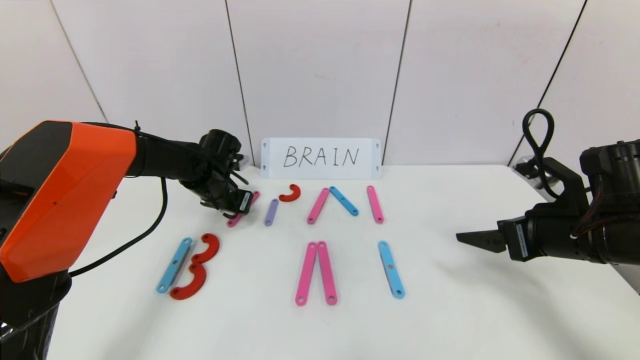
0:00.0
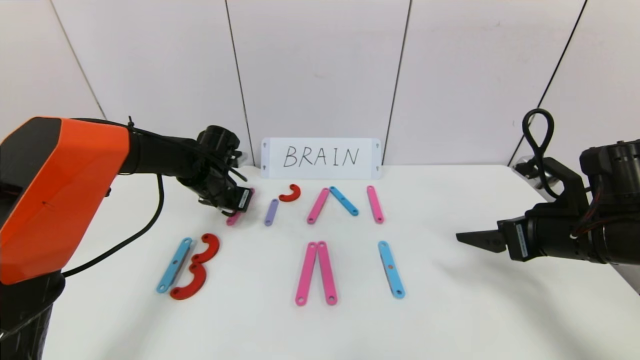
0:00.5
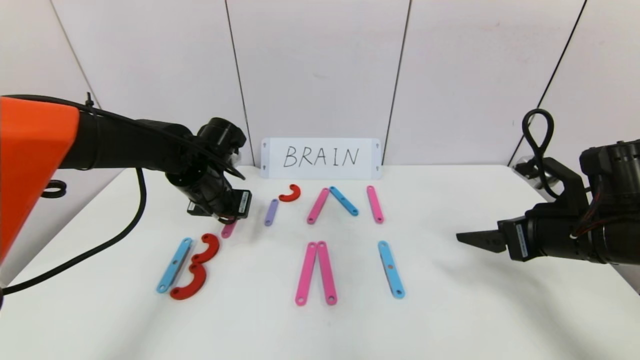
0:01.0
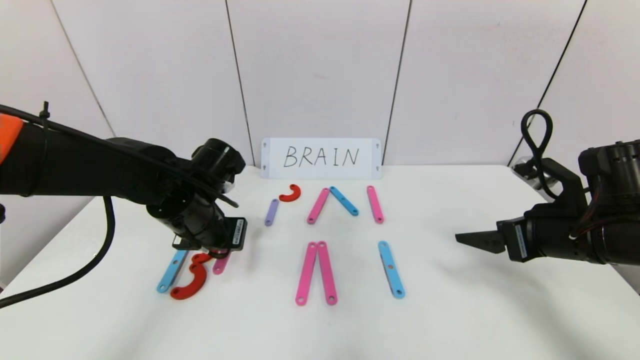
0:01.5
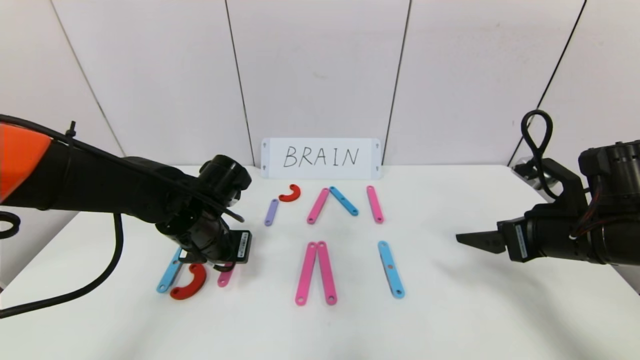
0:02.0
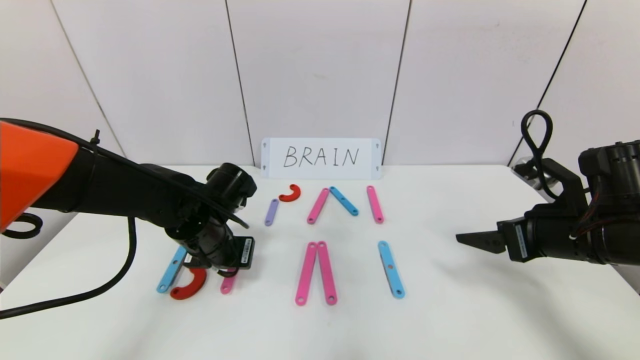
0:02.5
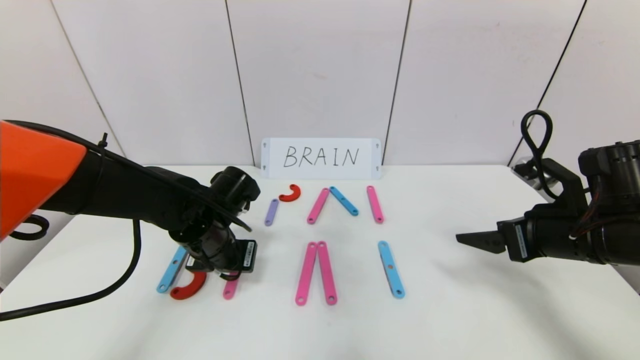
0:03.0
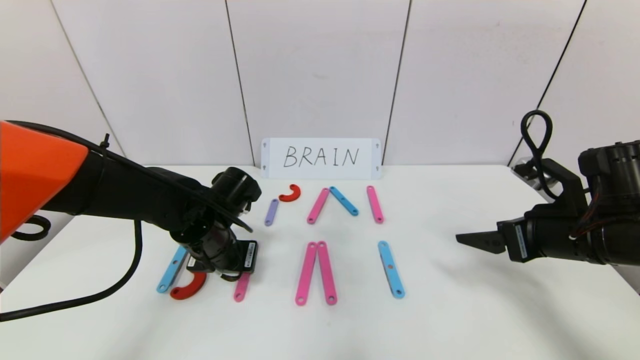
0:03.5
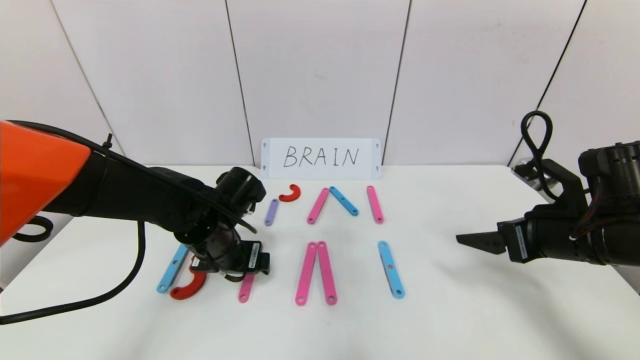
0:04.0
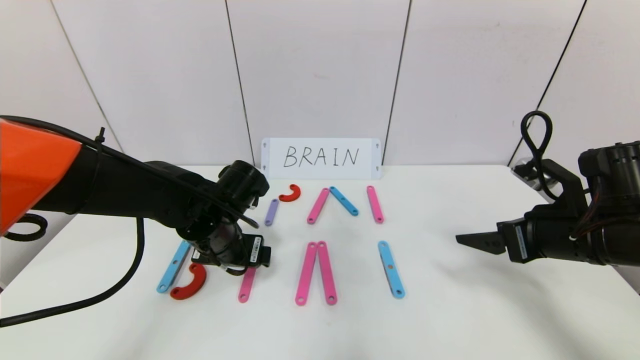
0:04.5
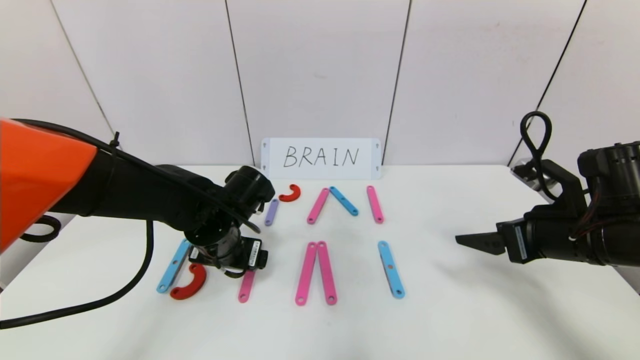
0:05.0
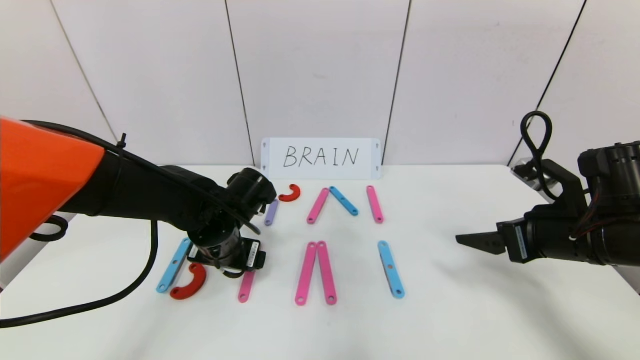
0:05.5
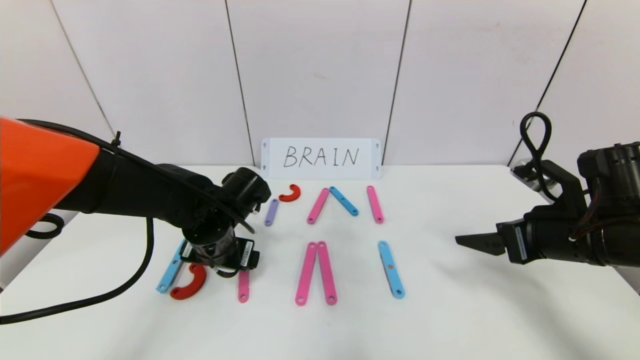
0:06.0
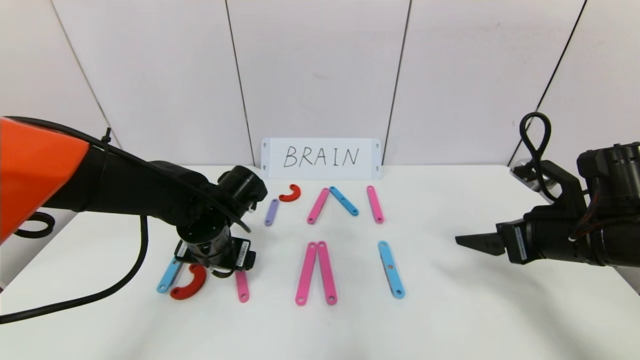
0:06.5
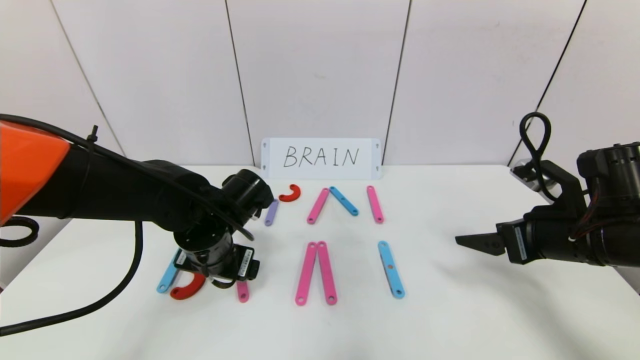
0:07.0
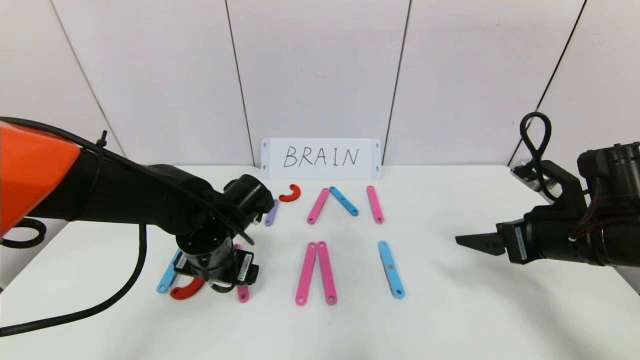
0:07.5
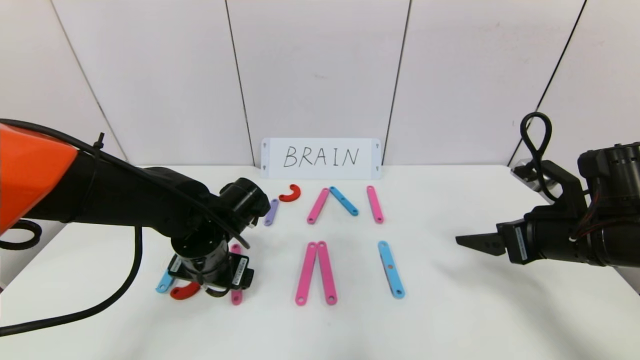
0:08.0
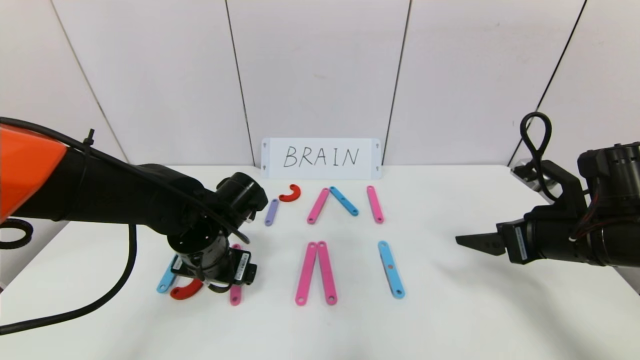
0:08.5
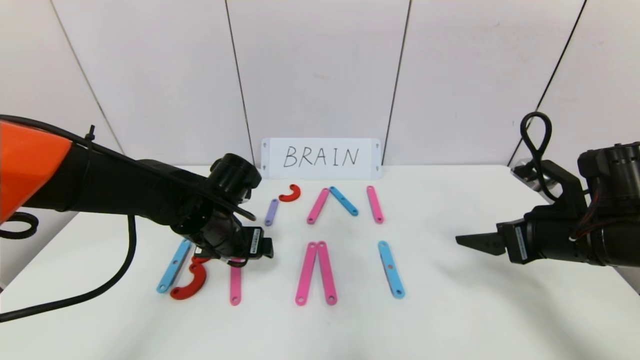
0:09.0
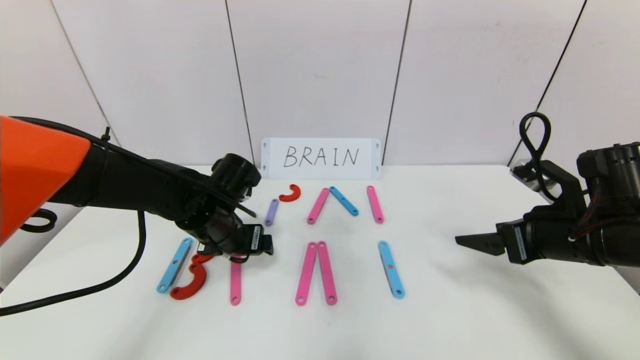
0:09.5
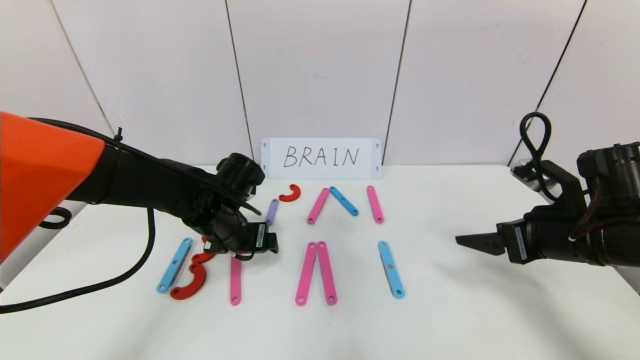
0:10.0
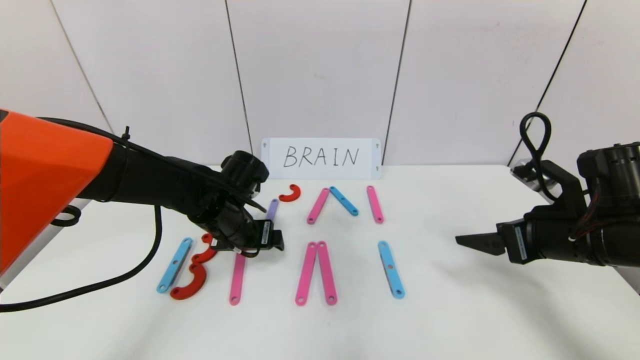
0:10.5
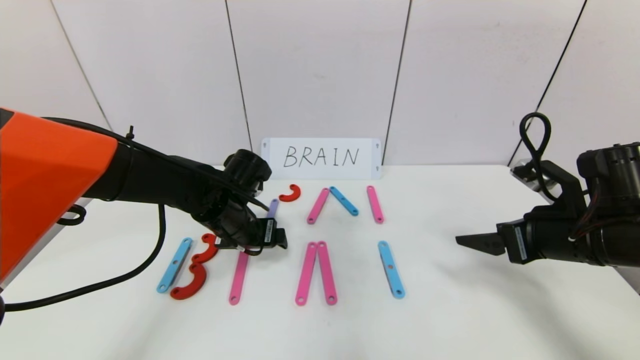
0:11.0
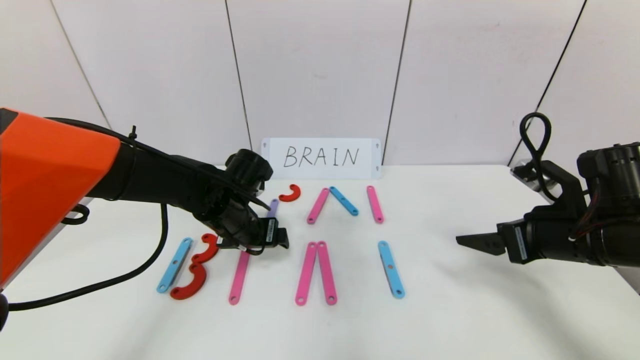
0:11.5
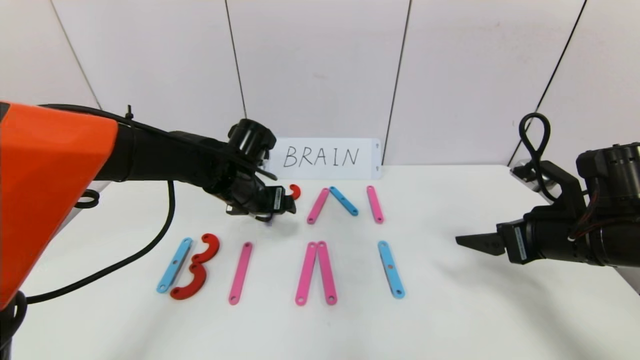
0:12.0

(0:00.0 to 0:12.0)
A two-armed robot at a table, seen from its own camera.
Task of the whole recording: rearrange the word baai as brain.
0:00.0 - 0:02.0: The left gripper heads backward, covering roughly 15 cm.
0:02.0 - 0:04.0: The left gripper opens.
0:04.0 - 0:08.0: The grippers stay close to where they were, moving slightly.
0:08.0 - 0:10.0: The left gripper is displaced forward by some 5 cm.
0:10.0 - 0:12.0: The left gripper moves approximately 5 cm.

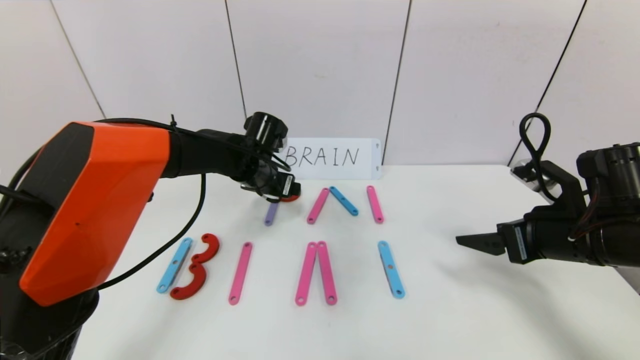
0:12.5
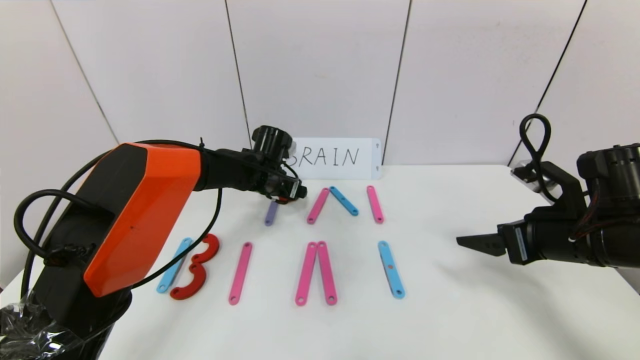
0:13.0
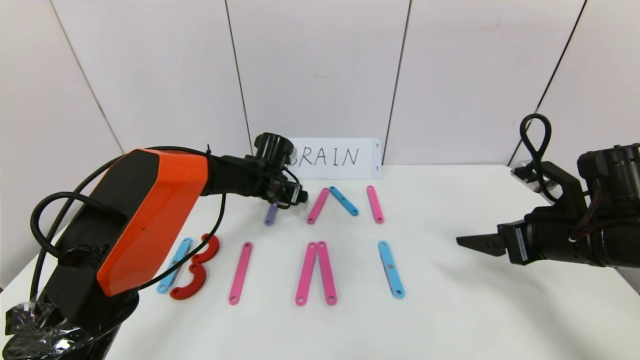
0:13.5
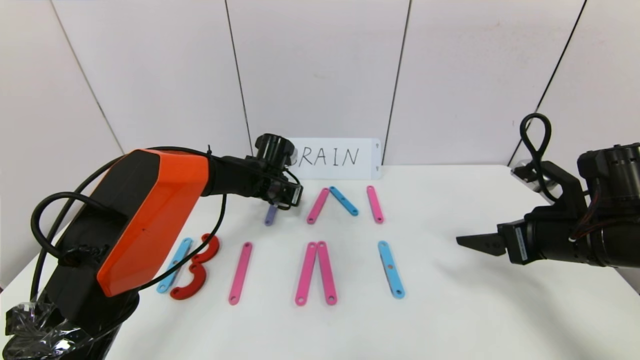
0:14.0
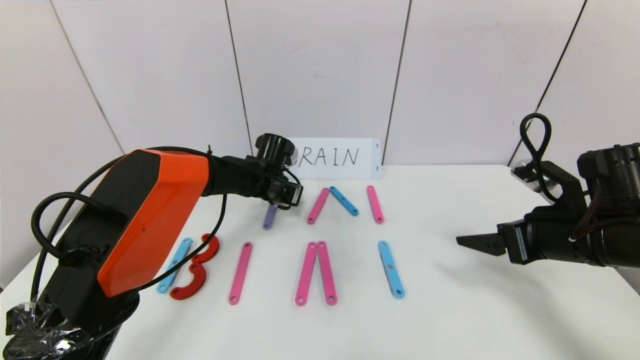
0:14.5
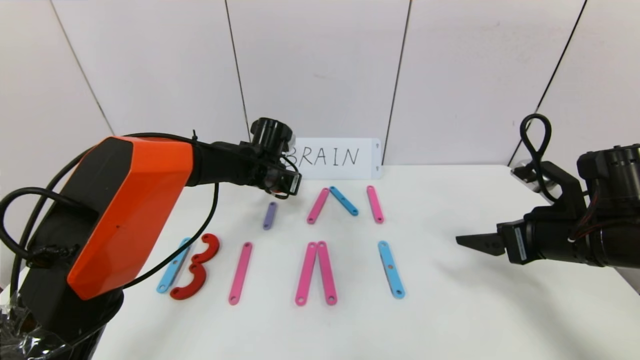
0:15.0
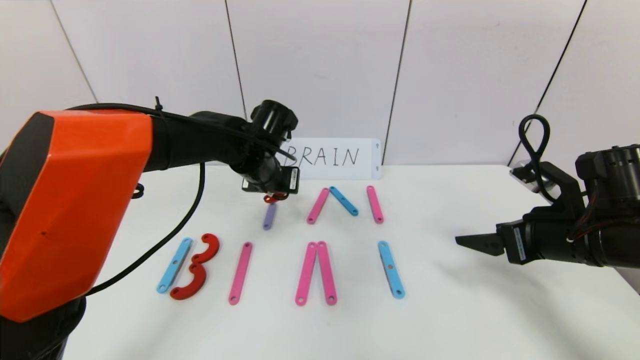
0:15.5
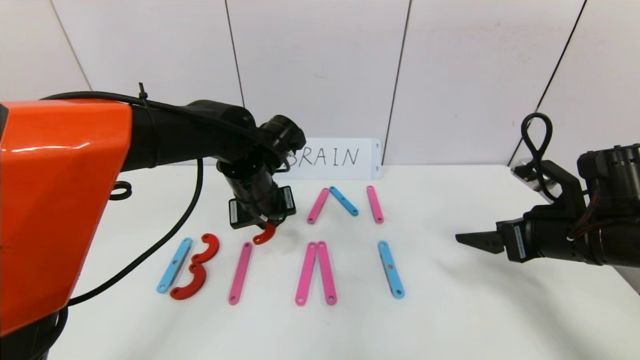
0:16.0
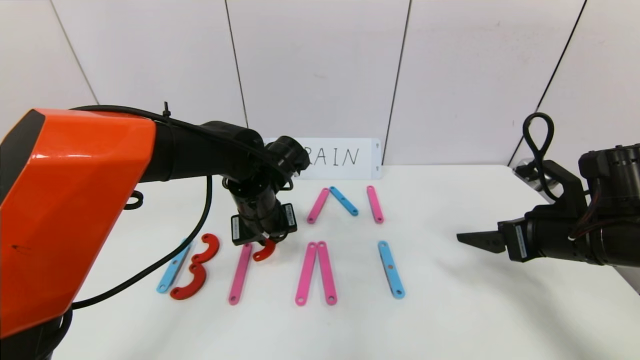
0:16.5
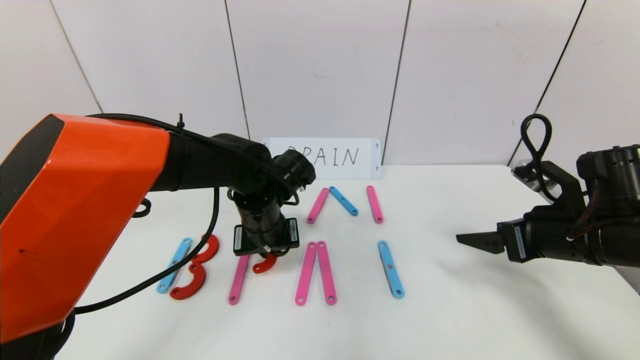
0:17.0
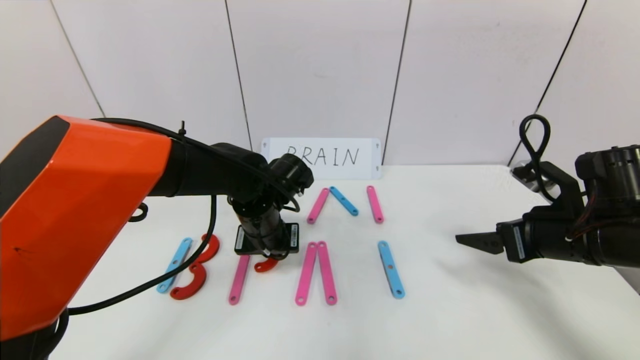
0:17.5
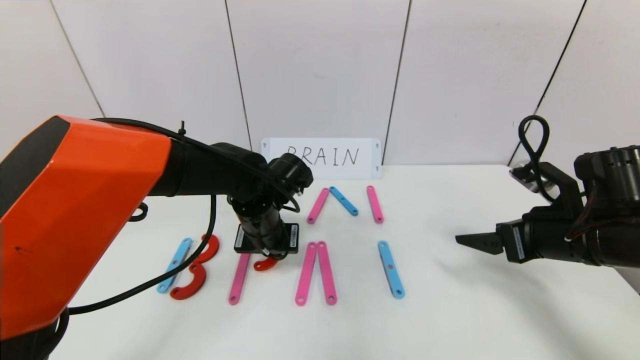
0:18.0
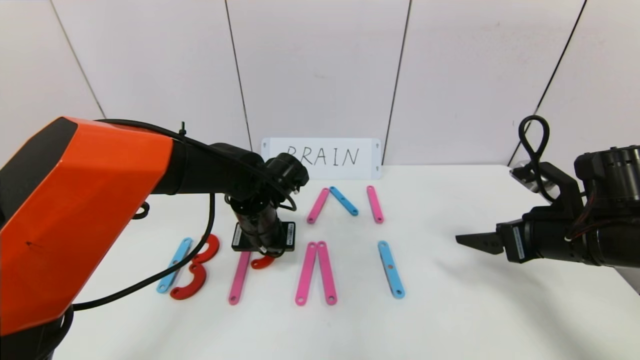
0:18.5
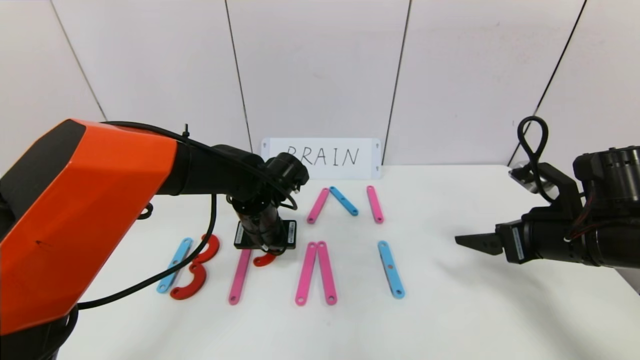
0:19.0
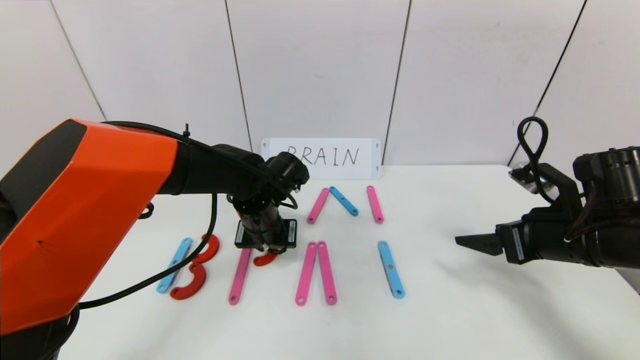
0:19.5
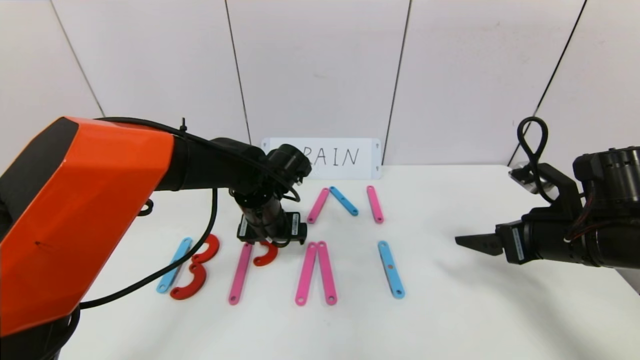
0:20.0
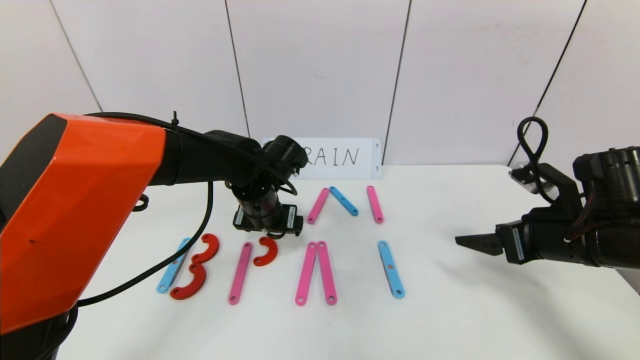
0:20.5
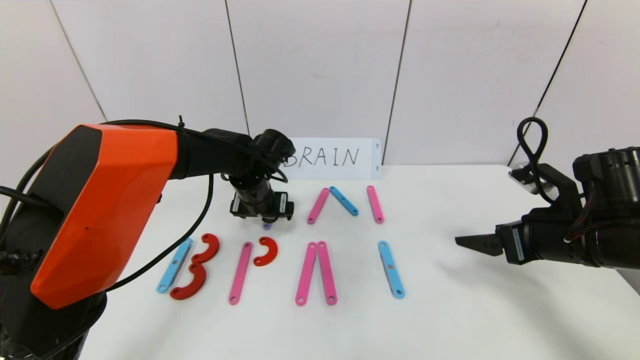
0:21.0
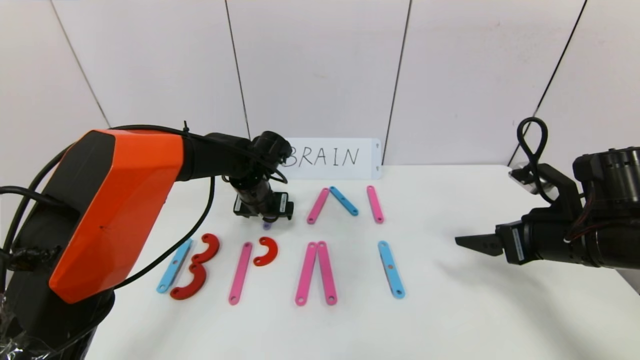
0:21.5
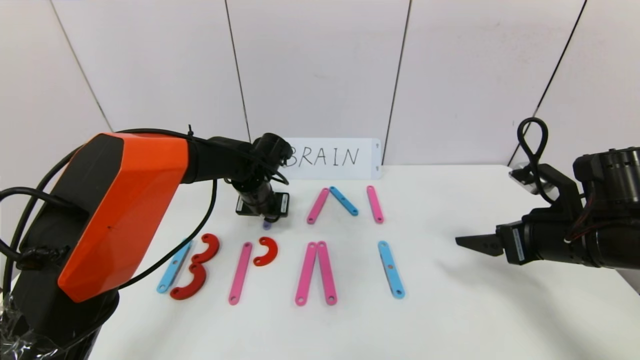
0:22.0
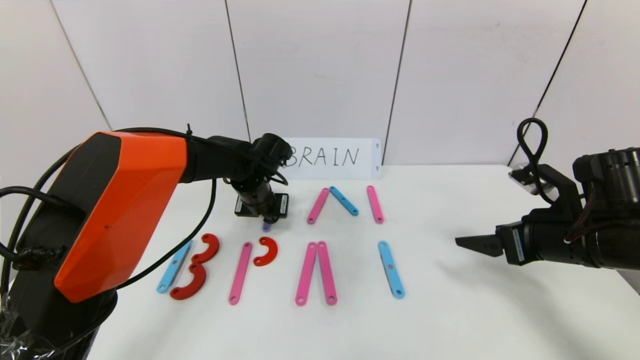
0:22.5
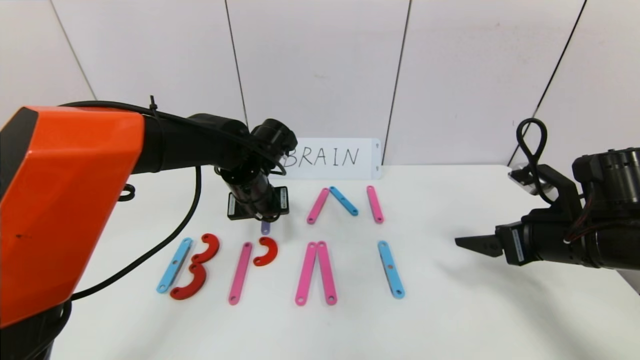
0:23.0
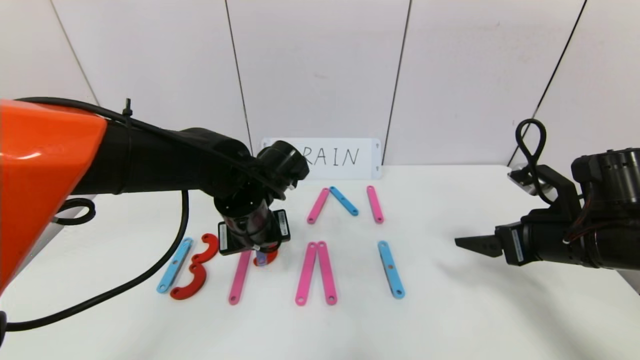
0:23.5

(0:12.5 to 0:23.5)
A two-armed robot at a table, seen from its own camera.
Task of the whole recording: rearrange the word baai as brain.
0:12.5 - 0:14.5: The left gripper shifts about 5 cm downward, and closes up.
0:14.5 - 0:16.0: The left gripper goes about 15 cm backward and upward.
0:16.0 - 0:18.0: The left gripper is displaced downward by approximately 5 cm.
0:18.0 - 0:20.0: The left gripper opens up.
0:20.0 - 0:21.5: The left gripper travels forward by some 5 cm.
0:21.5 - 0:23.5: The left gripper moves backward, roughly 10 cm, and closes up.
